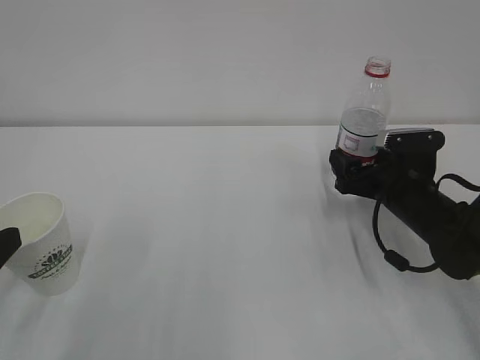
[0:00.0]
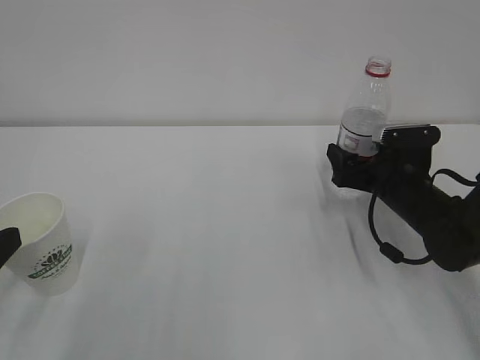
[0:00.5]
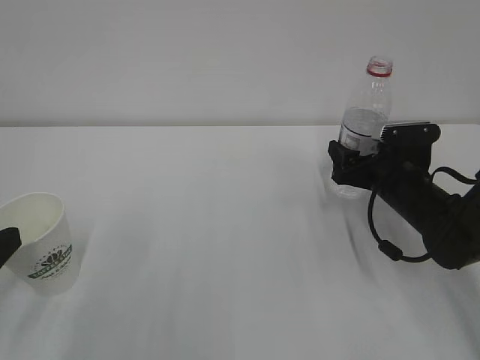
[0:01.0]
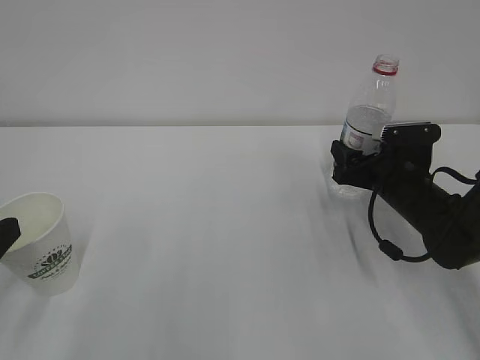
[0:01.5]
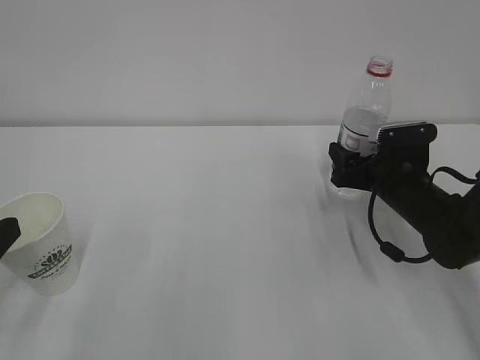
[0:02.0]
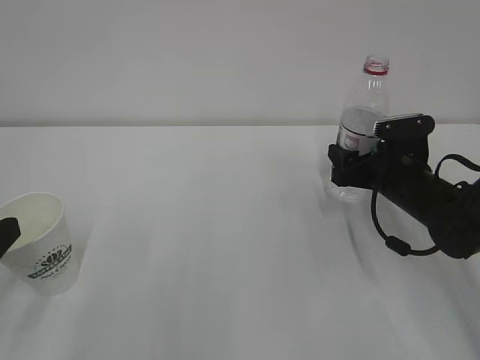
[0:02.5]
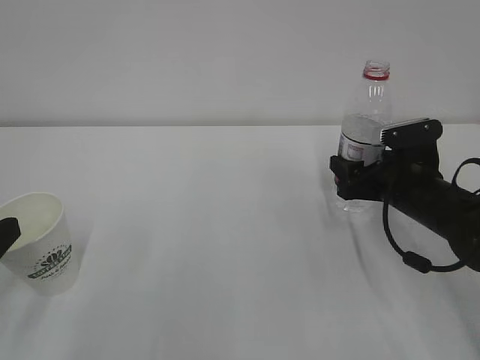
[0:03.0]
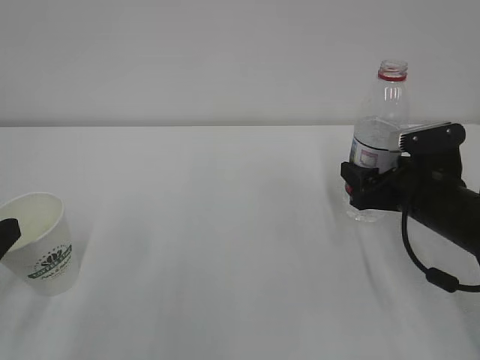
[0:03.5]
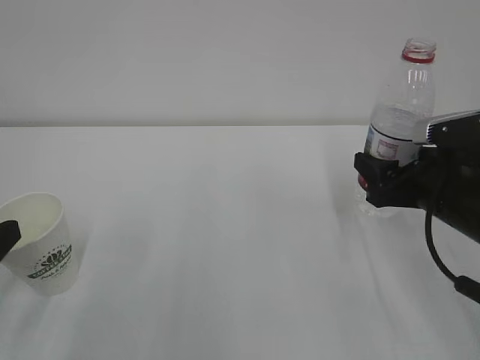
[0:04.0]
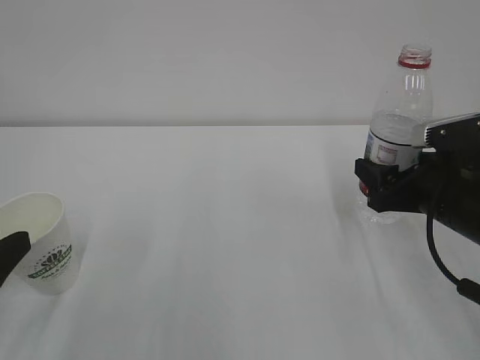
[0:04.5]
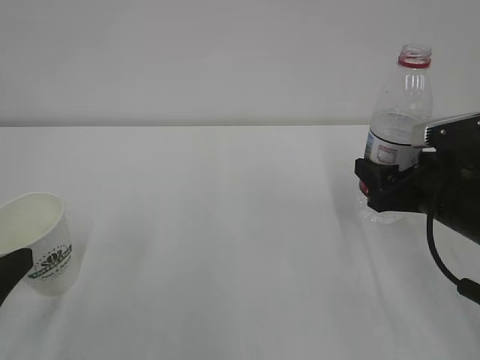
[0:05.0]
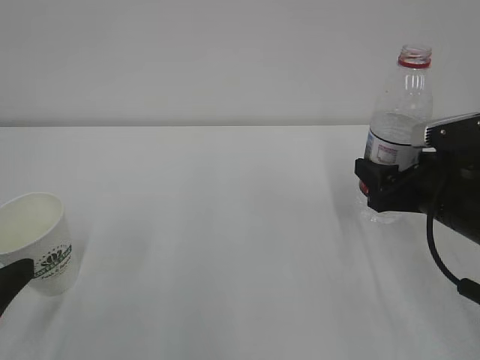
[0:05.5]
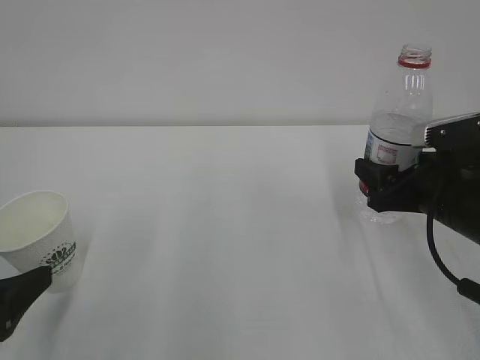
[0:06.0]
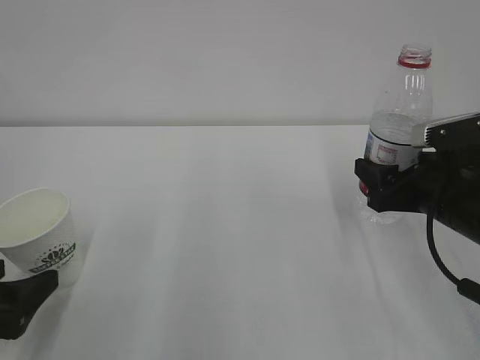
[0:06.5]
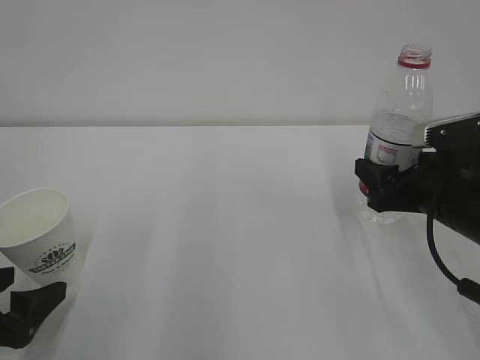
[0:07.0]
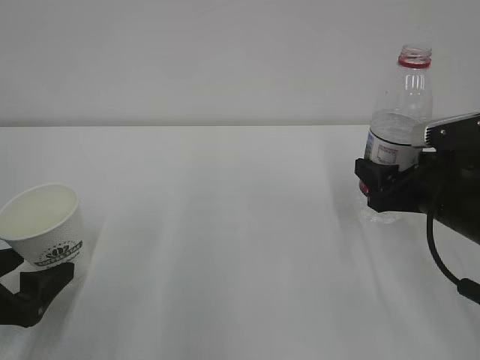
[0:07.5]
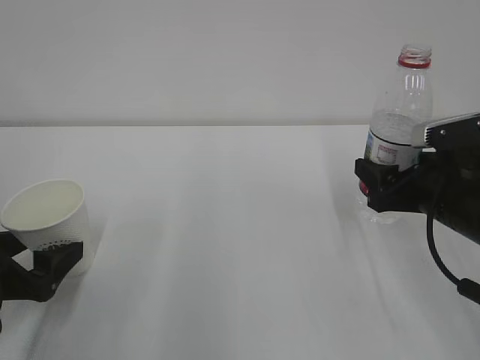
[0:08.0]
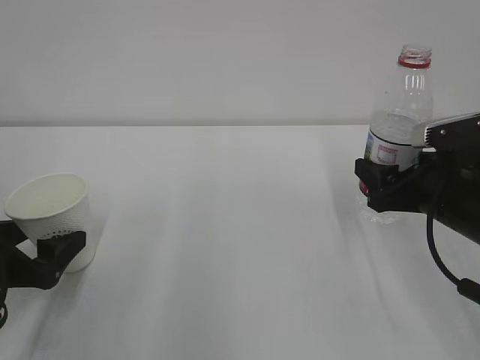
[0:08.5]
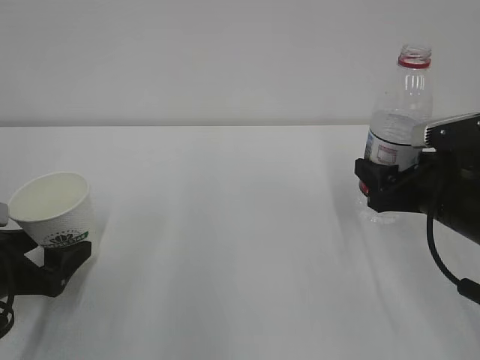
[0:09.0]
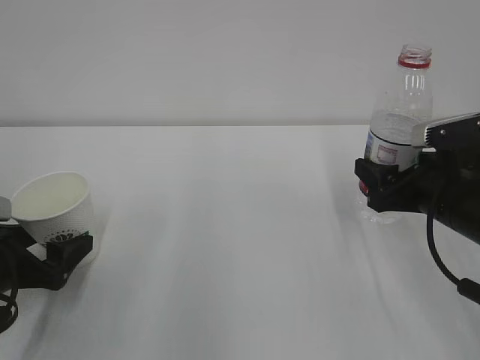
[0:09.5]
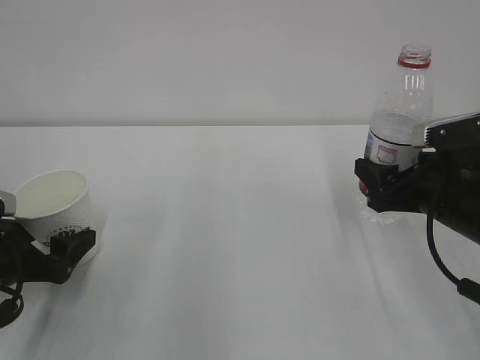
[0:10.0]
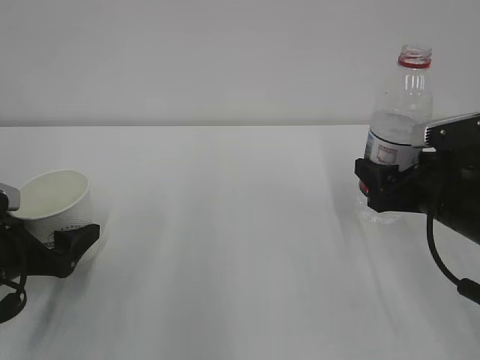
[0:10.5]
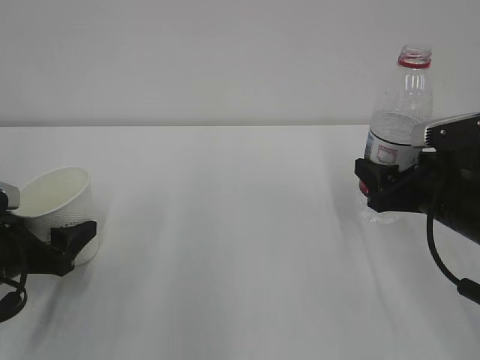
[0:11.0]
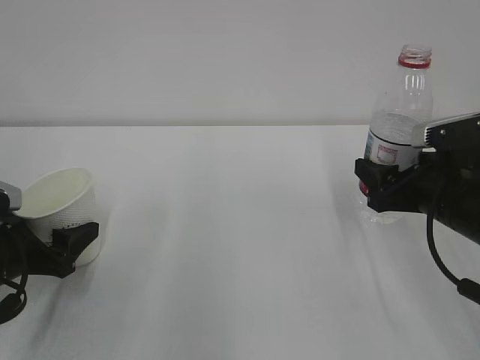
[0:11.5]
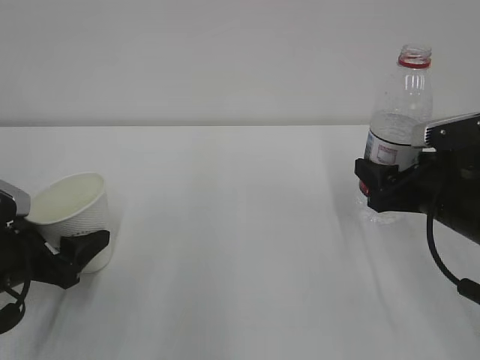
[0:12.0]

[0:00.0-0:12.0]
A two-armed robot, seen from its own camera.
Step, 0:01.5 to 0:10.5: Grasp the cup with left gripper.
0:00.0 to 0:02.0: The right gripper closes its fingers.
0:02.0 to 0:04.0: The right gripper goes some 10 cm backward and upward.
0:04.0 to 0:06.0: The left gripper opens.
0:06.0 to 0:08.0: The left gripper travels forward by some 5 cm.
0:08.0 to 0:10.0: There are only small adjustments of the grippers.
0:10.0 to 0:12.0: The left gripper closes its fingers.

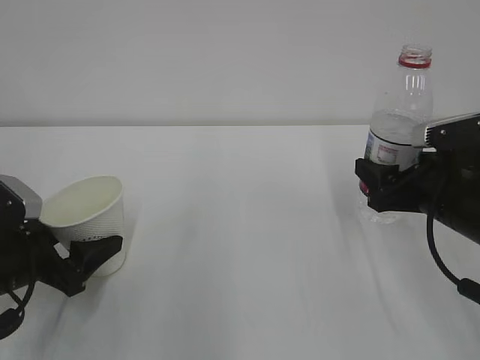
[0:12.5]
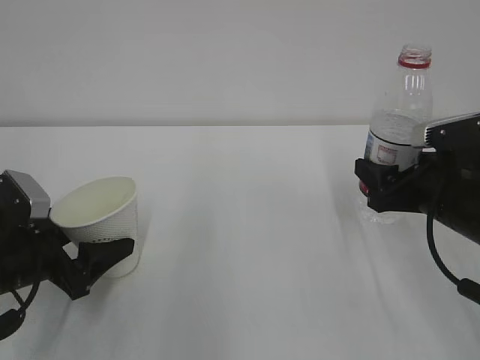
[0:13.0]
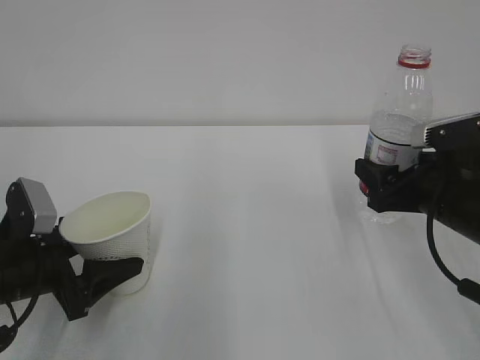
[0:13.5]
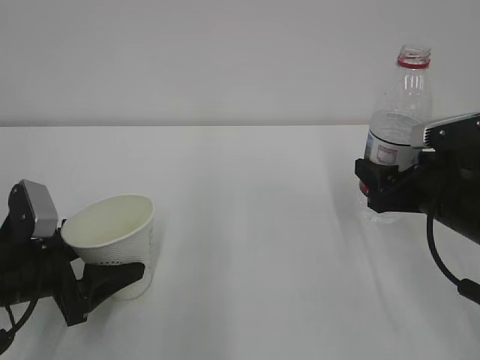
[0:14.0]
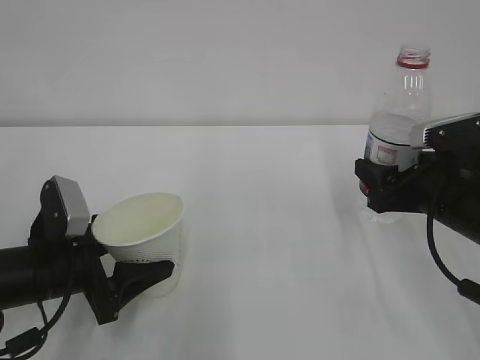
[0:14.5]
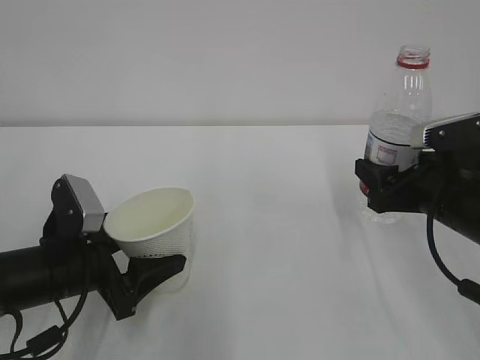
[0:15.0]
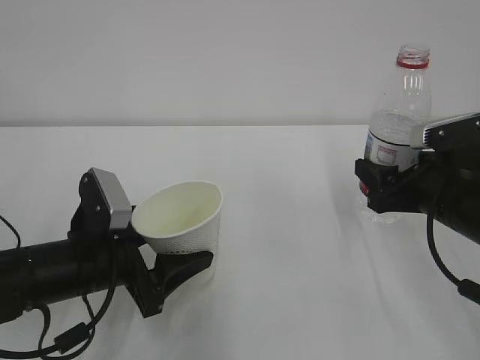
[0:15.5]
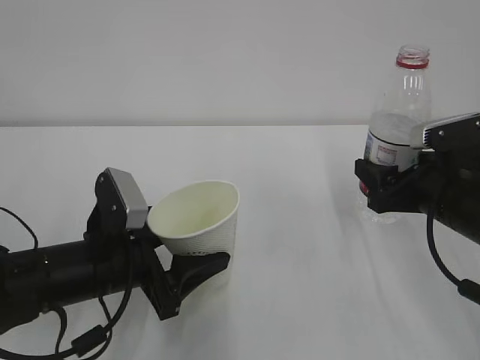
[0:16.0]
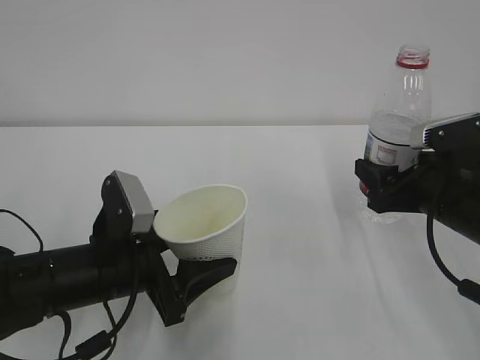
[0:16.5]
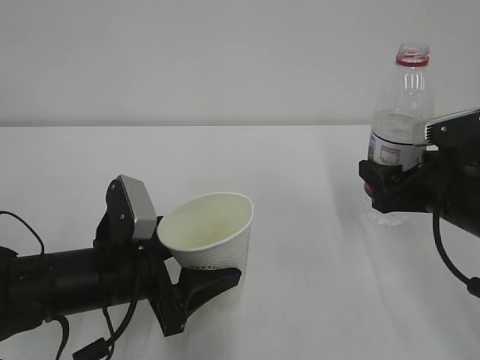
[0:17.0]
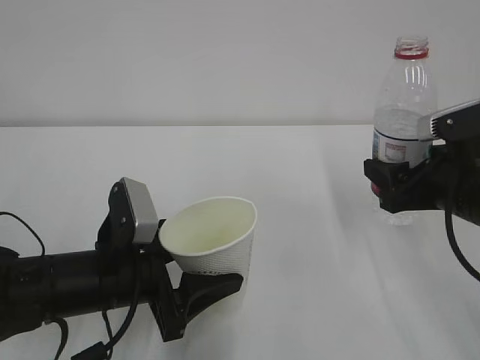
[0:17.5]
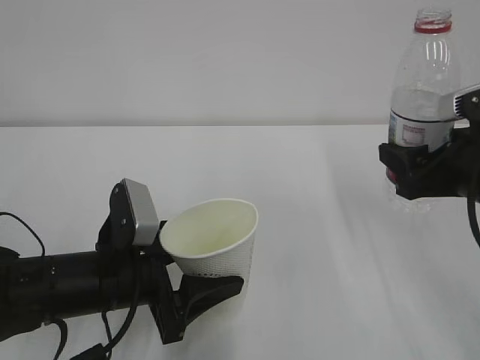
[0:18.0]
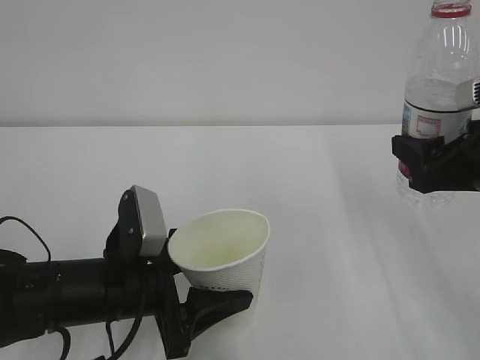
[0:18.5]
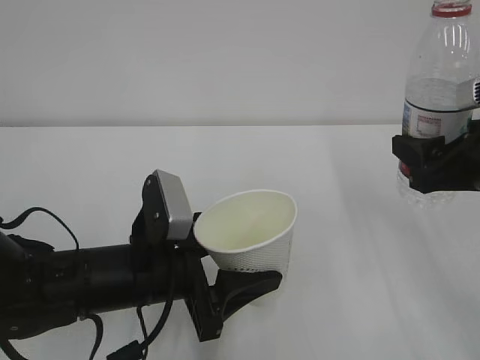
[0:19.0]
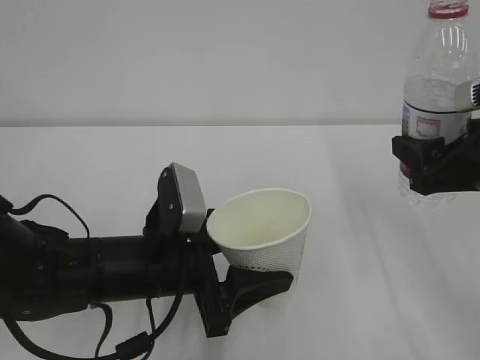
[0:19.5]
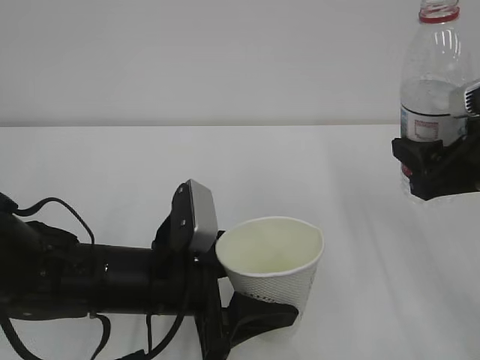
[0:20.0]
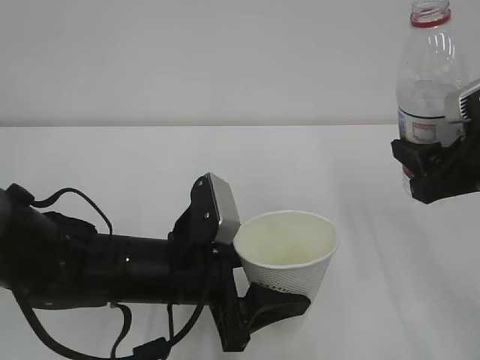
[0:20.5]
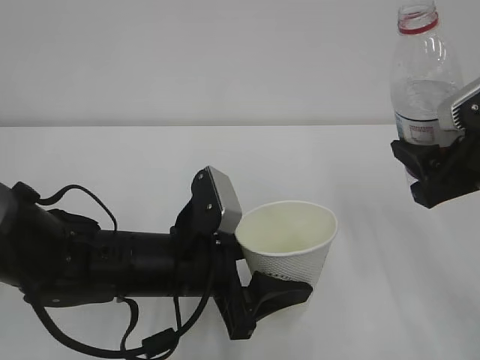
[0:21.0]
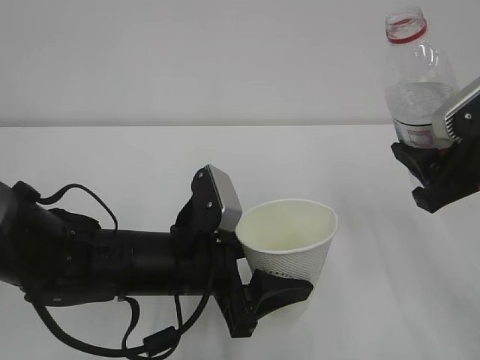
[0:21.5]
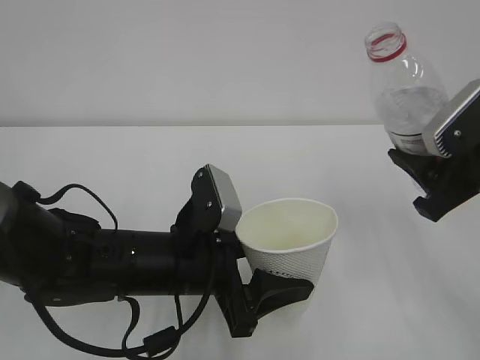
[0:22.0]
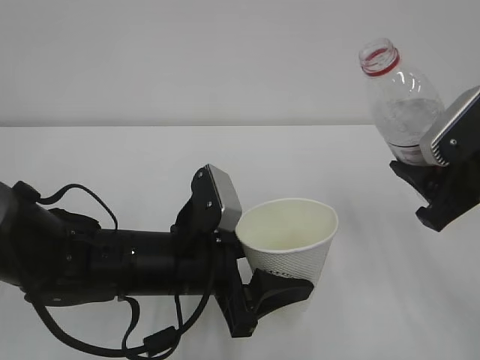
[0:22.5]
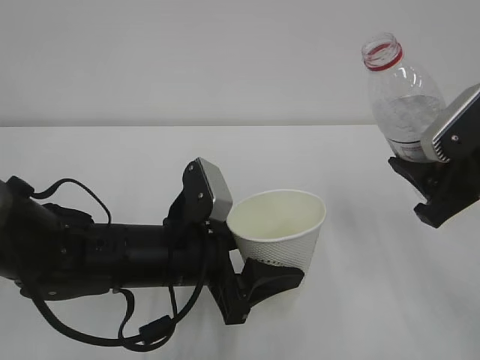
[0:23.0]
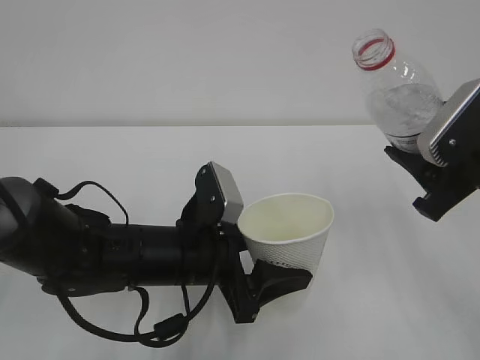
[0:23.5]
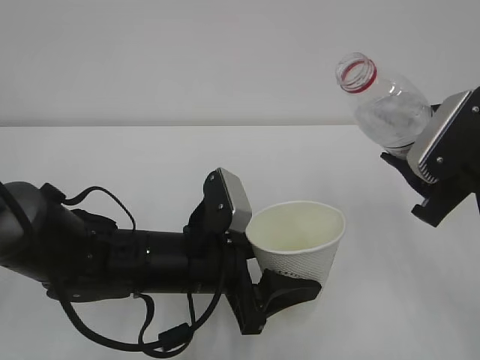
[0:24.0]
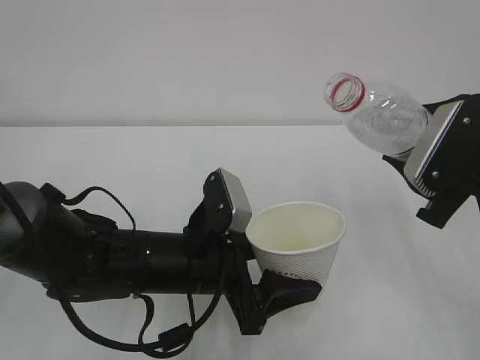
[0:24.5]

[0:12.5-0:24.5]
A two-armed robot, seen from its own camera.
0:12.5 to 0:14.5: The left gripper moves to the right, approximately 5 cm.
0:14.5 to 0:16.5: The left gripper is displaced to the right by some 5 cm.
0:16.5 to 0:18.5: The right gripper travels upward by some 5 cm.
0:18.5 to 0:20.5: The left gripper shifts approximately 5 cm to the right.

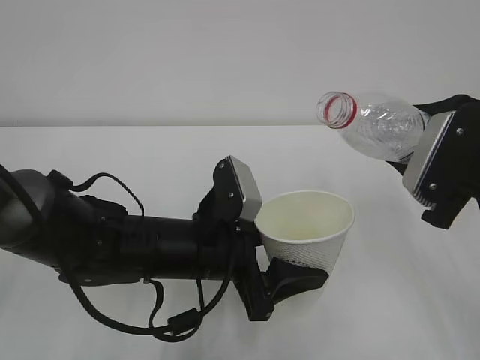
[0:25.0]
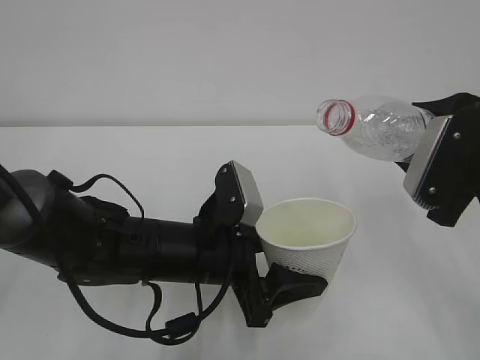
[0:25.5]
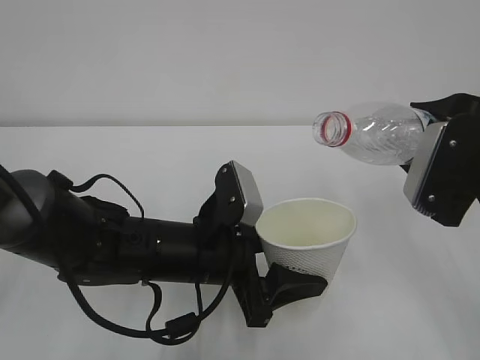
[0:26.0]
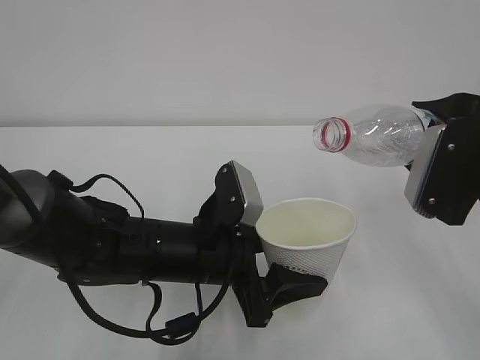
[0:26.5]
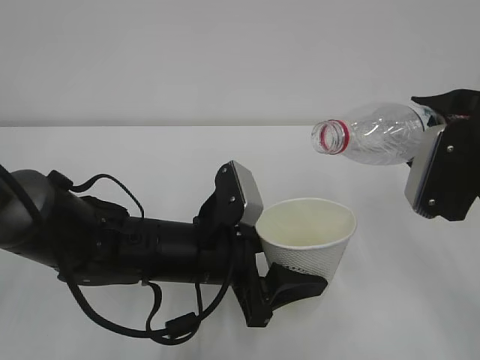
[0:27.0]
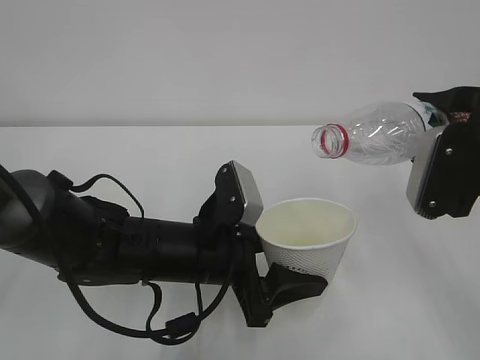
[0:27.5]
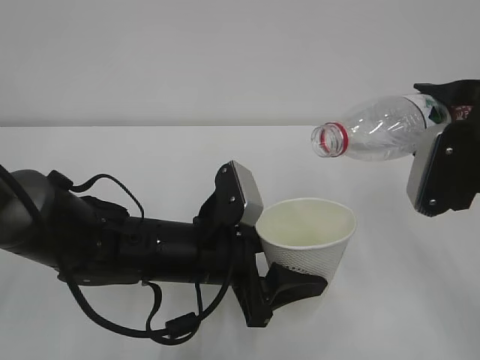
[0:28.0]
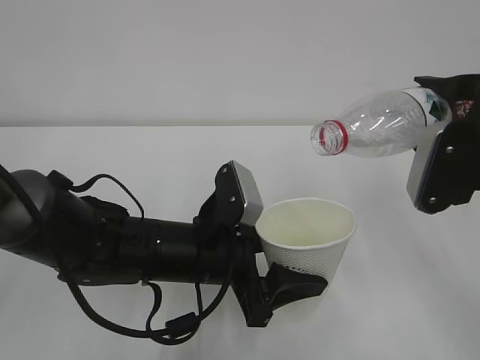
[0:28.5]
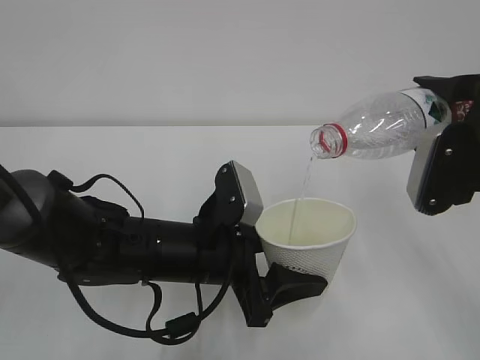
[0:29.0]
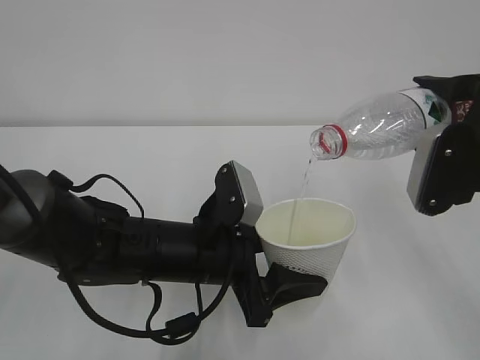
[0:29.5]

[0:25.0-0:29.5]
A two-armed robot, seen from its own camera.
0:25.0 to 0:27.0: The grippers stay close to where they were, moving slightly.
0:27.0 to 0:29.5: The grippers make only small movements.
